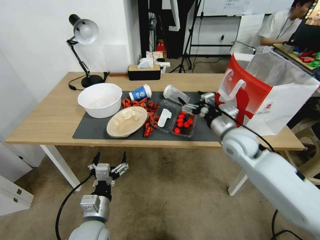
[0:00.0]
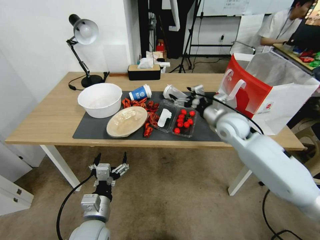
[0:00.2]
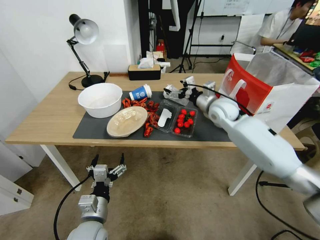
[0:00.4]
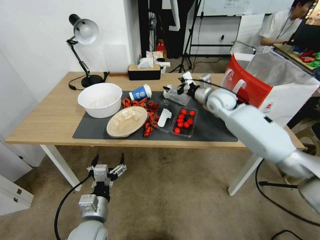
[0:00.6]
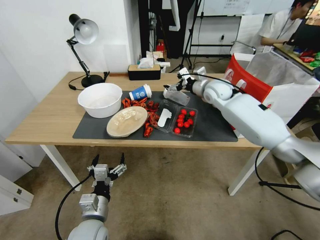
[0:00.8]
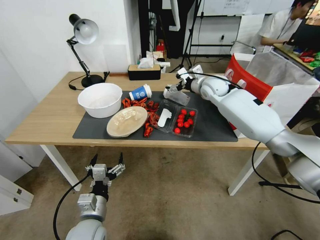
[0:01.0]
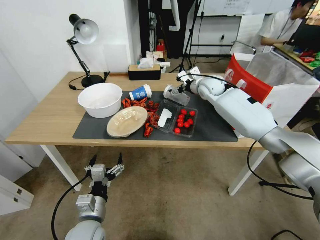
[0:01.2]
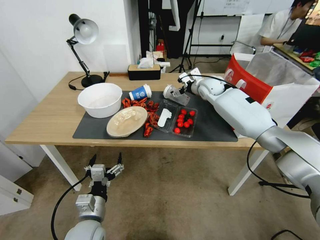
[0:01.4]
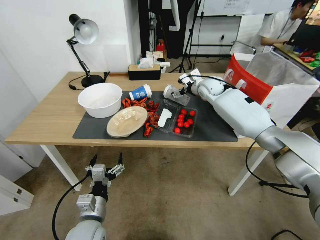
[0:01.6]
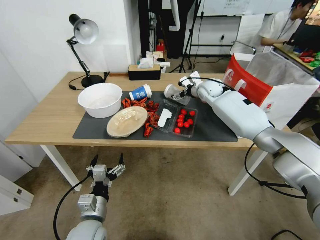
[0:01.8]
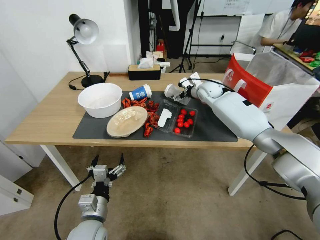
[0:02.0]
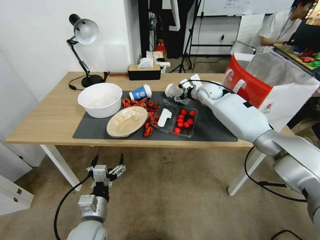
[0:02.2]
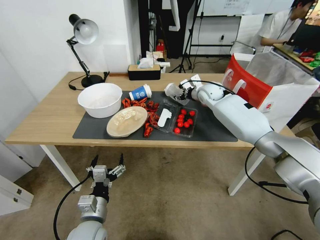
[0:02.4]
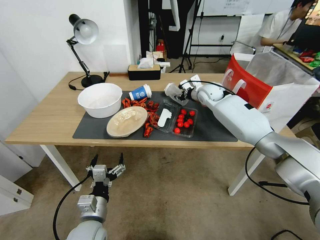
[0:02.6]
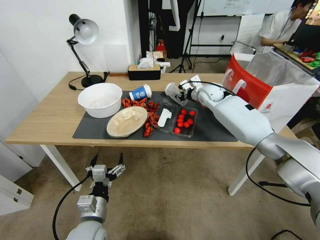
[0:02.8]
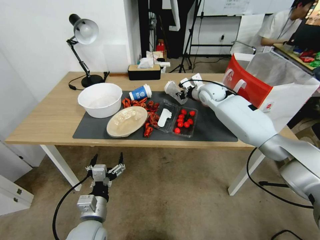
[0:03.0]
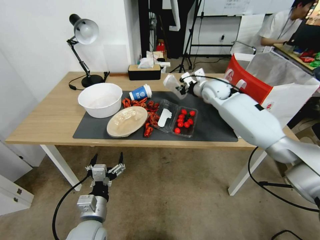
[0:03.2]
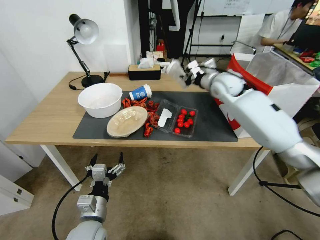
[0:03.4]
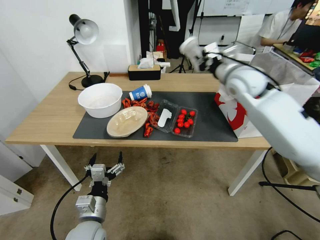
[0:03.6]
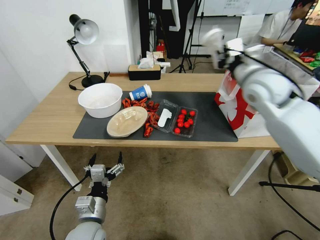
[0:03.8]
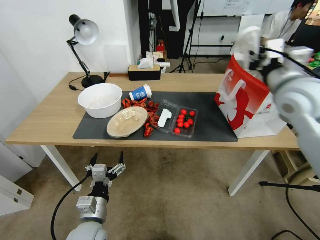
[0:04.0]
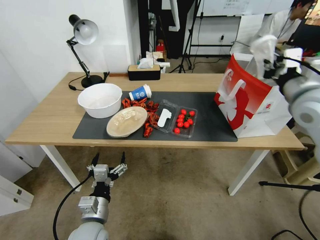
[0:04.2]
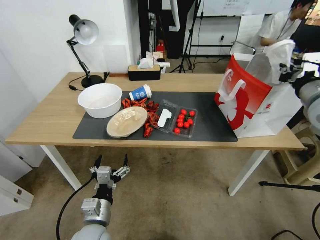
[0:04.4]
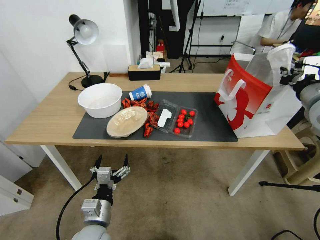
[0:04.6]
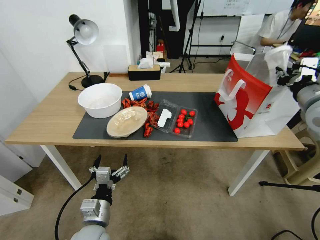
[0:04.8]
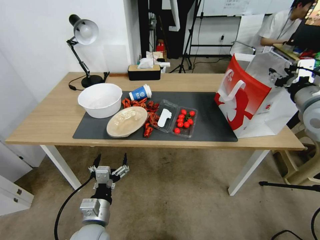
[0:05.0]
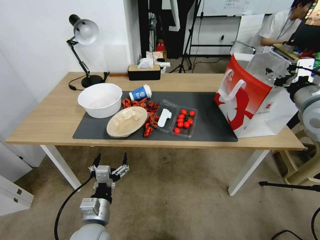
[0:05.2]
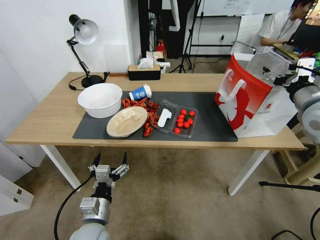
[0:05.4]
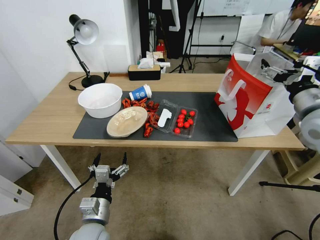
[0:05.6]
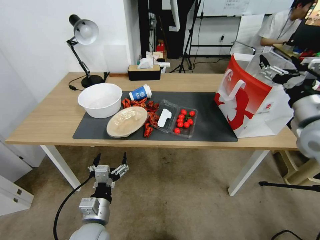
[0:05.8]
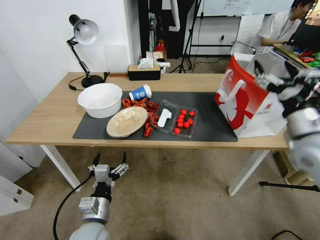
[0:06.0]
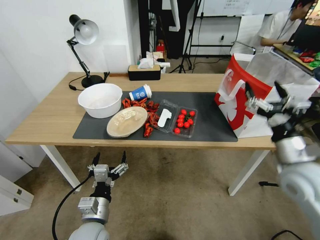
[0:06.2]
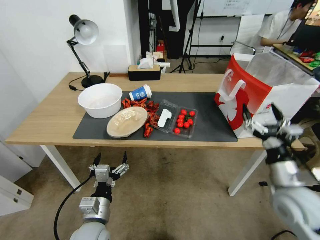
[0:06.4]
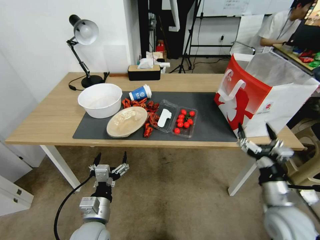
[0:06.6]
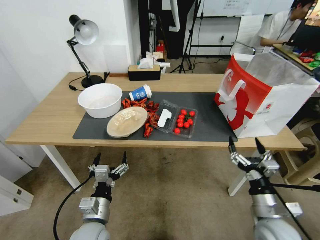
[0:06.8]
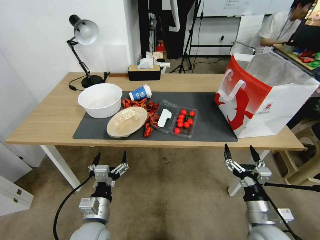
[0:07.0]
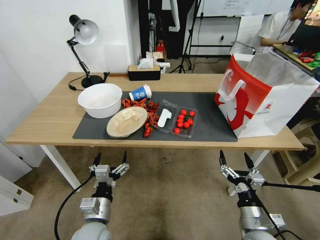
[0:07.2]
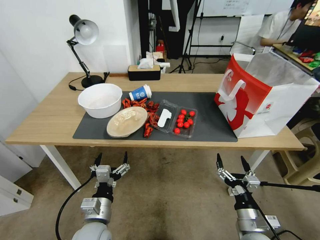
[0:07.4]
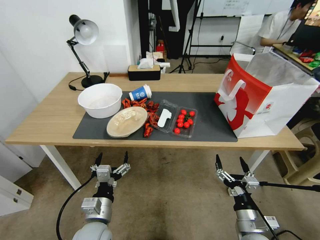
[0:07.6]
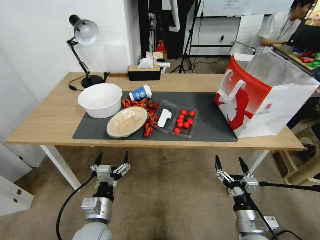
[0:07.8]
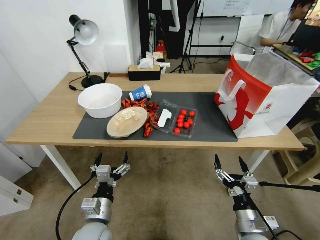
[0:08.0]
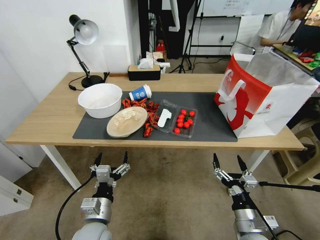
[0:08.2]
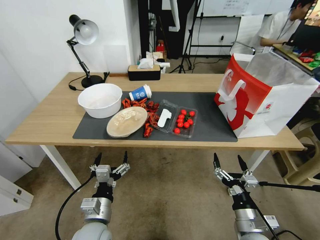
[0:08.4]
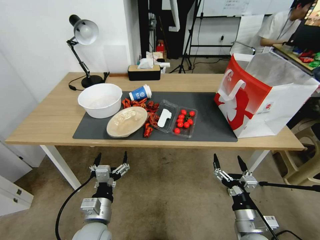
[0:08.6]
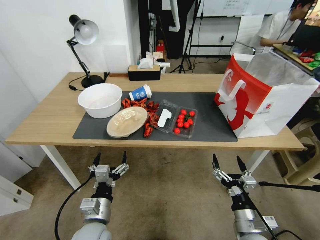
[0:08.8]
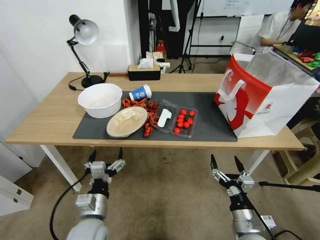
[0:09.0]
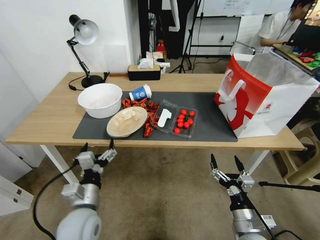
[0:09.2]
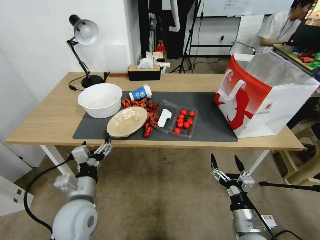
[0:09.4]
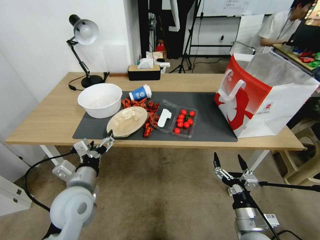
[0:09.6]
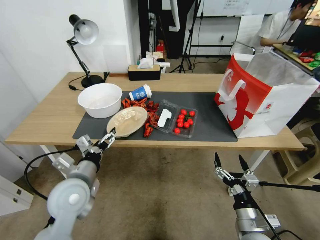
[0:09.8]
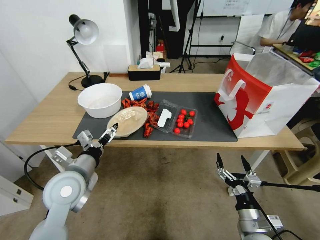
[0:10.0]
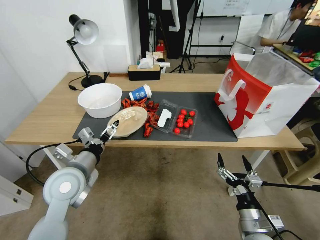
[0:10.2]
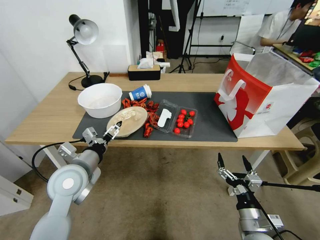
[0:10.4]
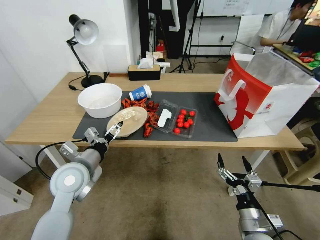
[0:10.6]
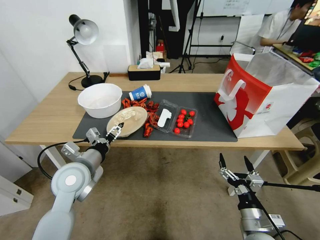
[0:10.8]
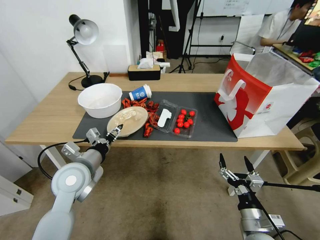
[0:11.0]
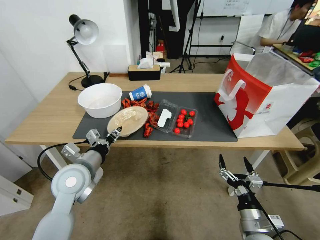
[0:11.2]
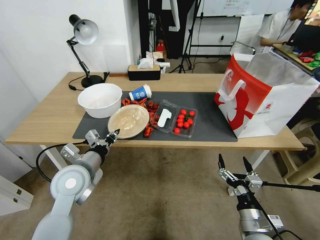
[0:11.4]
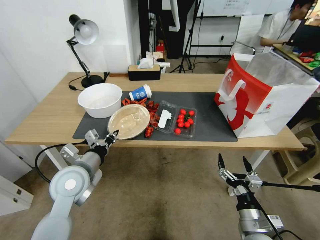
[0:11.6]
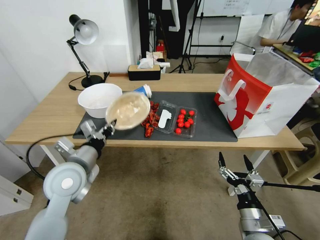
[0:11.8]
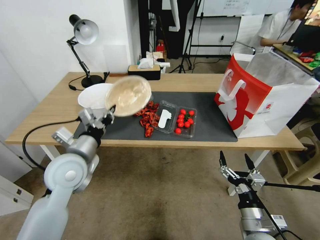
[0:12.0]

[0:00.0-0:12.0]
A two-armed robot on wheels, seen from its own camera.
0:00.0 to 0:01.6: The right gripper is displaced forward by roughly 25 cm.
0:01.6 to 0:03.0: The right gripper closes its fingers.
0:03.0 to 0:04.4: The right gripper travels backward, to the right and upward by about 35 cm.
0:04.4 to 0:06.0: The right gripper heads downward and backward, covering roughly 10 cm, and opens.
0:06.0 to 0:07.6: The right gripper shifts some 30 cm downward and backward.
0:07.6 to 0:09.0: The grippers make only small movements.
0:09.0 to 0:10.4: The left gripper heads upward and forward, covering roughly 15 cm.
0:10.4 to 0:12.0: The left gripper closes its fingers.

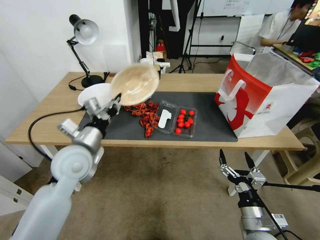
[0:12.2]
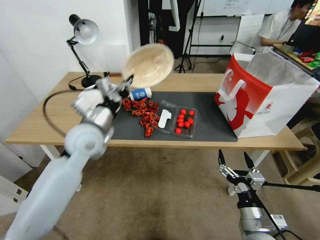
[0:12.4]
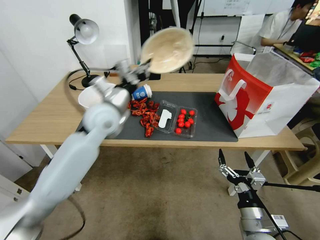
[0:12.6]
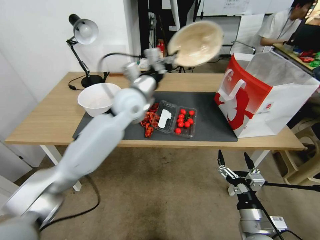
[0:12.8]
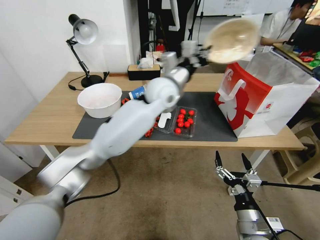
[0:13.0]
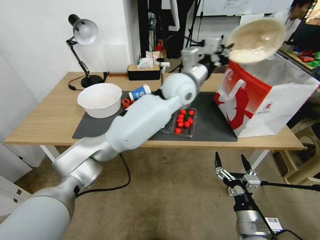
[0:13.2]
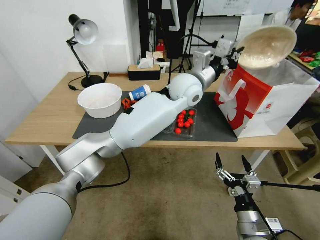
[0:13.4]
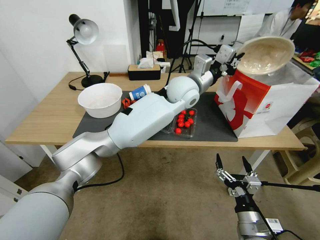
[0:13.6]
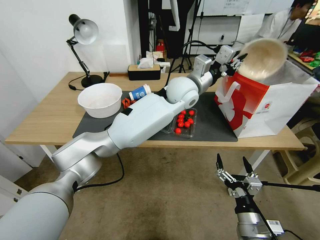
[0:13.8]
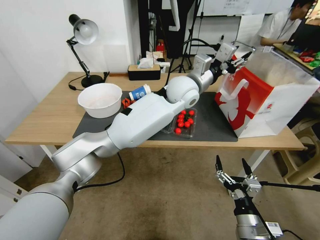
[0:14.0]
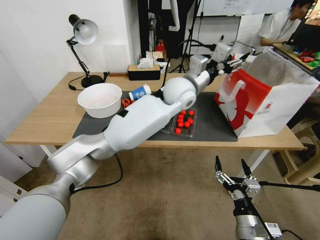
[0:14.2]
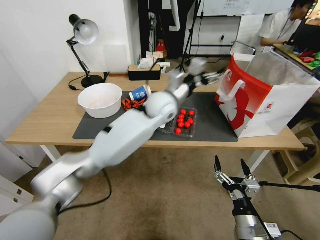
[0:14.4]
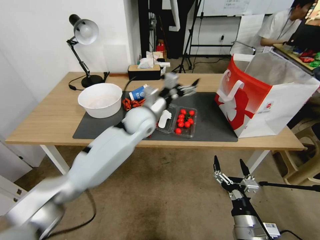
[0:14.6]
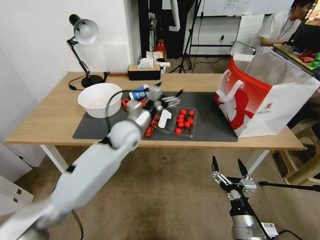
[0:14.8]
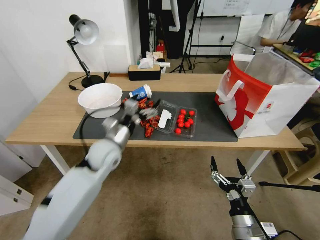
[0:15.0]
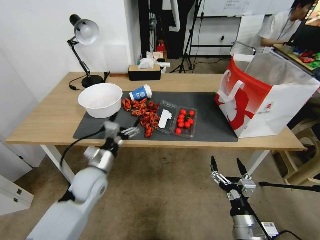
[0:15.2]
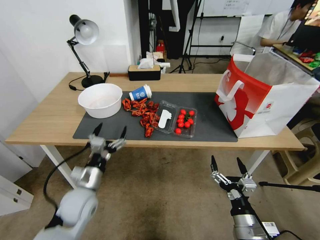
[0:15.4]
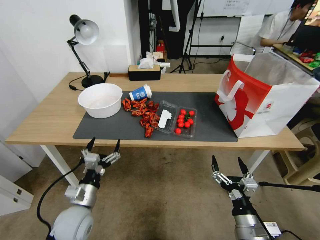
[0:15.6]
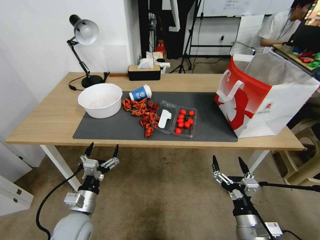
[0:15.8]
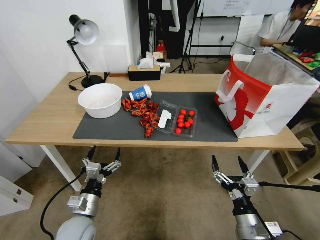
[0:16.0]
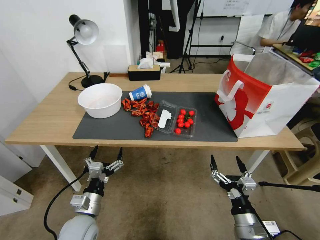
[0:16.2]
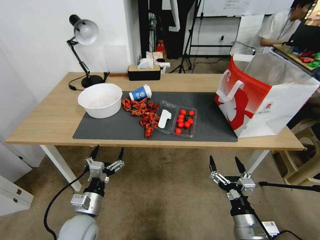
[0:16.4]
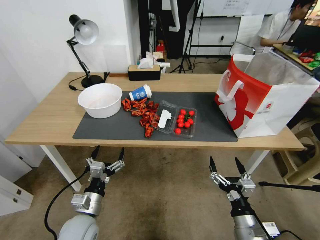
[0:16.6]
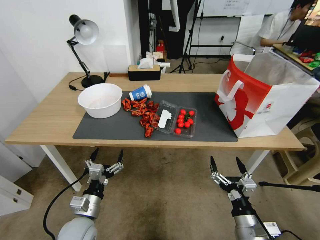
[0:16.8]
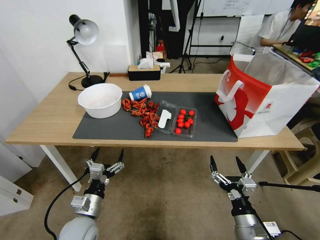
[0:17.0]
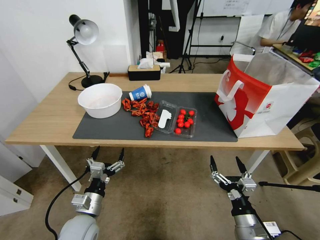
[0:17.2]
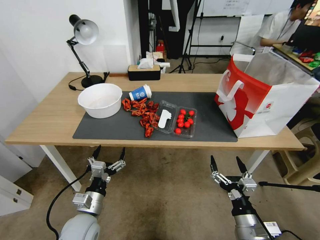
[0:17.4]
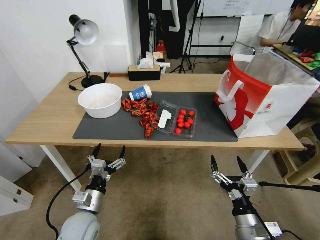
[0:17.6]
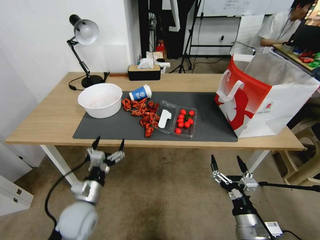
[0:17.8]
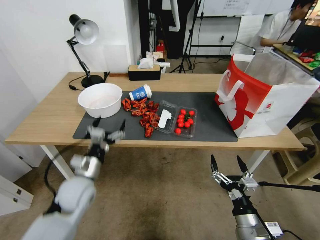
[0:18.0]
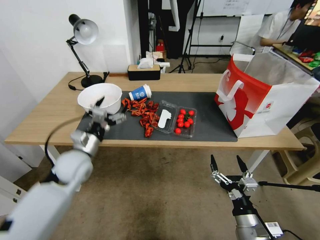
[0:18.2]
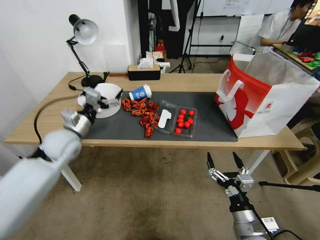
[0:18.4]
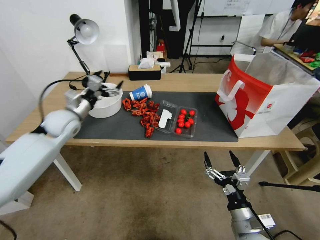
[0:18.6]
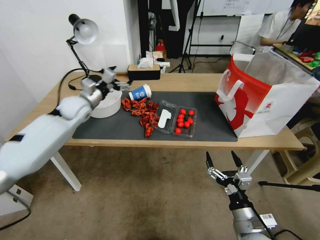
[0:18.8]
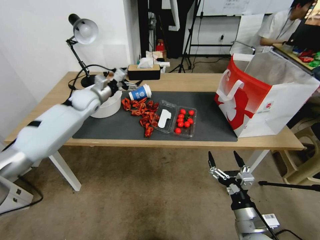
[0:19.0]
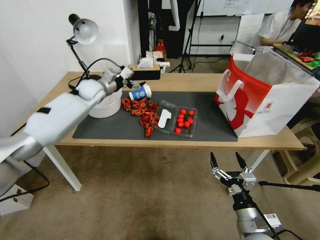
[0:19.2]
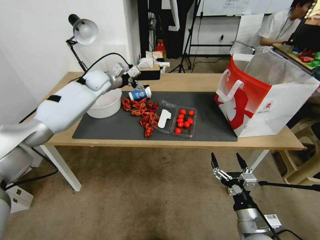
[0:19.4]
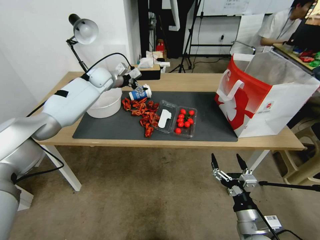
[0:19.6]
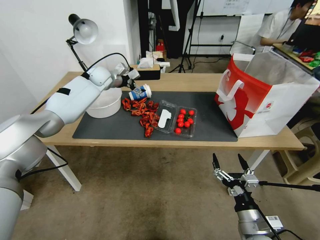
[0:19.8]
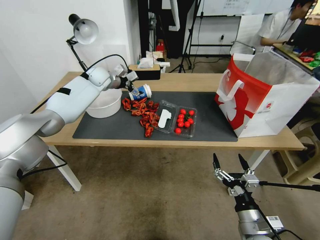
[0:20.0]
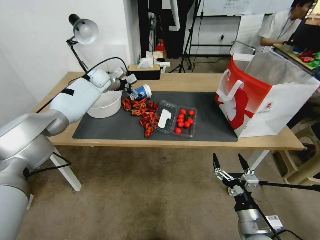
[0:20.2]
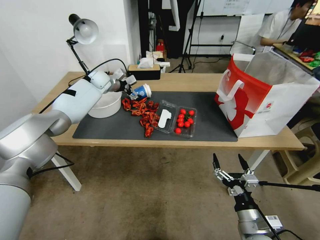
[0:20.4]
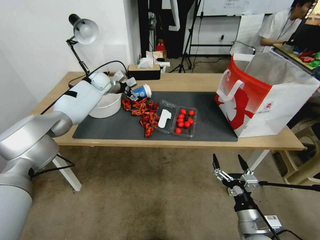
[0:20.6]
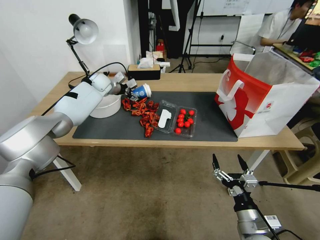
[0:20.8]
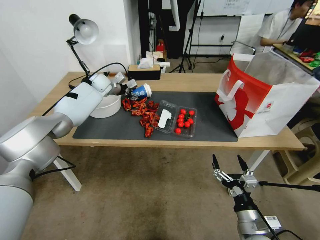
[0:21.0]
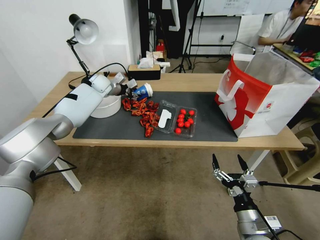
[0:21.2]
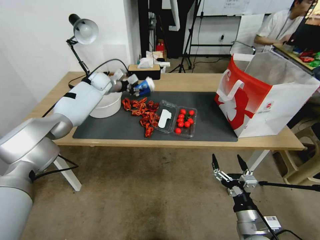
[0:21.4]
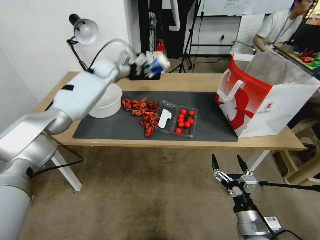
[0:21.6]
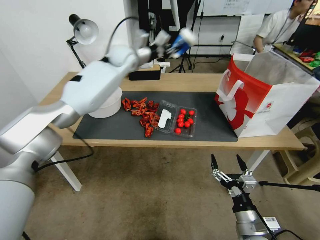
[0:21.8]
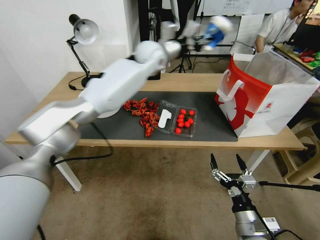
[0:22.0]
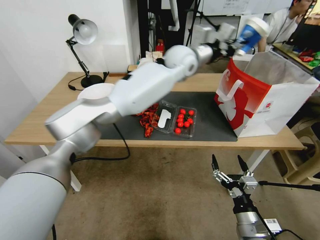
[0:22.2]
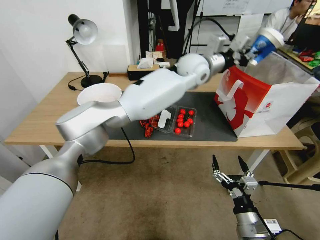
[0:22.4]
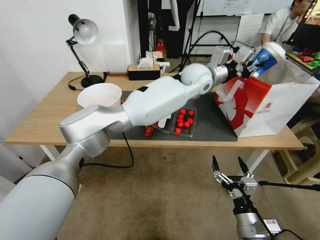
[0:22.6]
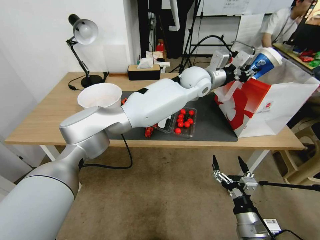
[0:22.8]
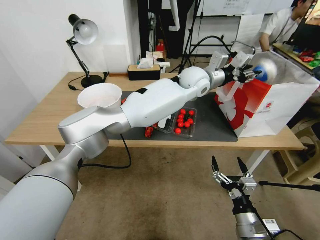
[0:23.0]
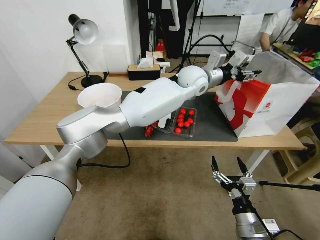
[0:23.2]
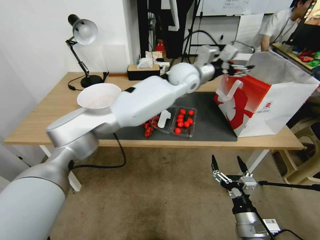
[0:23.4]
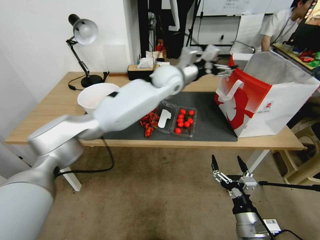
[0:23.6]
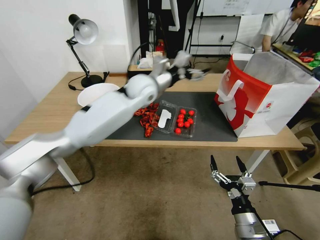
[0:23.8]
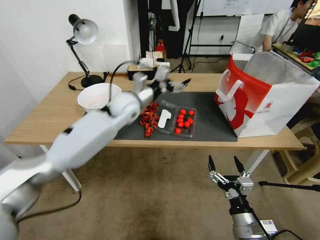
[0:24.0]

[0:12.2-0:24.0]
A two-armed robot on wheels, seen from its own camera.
0:12.2 to 0:13.6: The left gripper travels to the right and forward by roughly 35 cm.
0:13.6 to 0:15.2: The left gripper shifts some 40 cm to the left, downward and backward, and opens up.
0:15.2 to 0:16.6: The left gripper heads backward and downward, covering some 15 cm.
0:16.6 to 0:18.2: The left gripper travels forward and upward by about 20 cm.
0:18.2 to 0:19.6: The left gripper travels forward by about 30 cm.
0:19.6 to 0:21.0: The left gripper moves roughly 5 cm, and closes up.
0:21.0 to 0:22.6: The left gripper goes about 40 cm to the right, and closes.
0:22.6 to 0:24.0: The left gripper heads to the left, covering about 20 cm, and opens.
